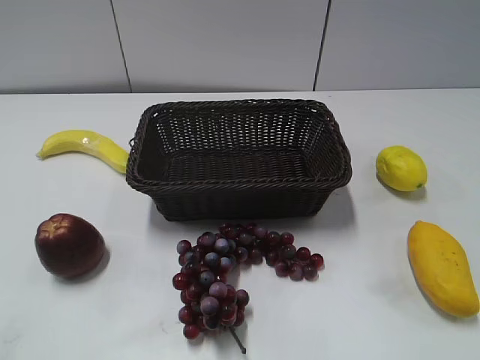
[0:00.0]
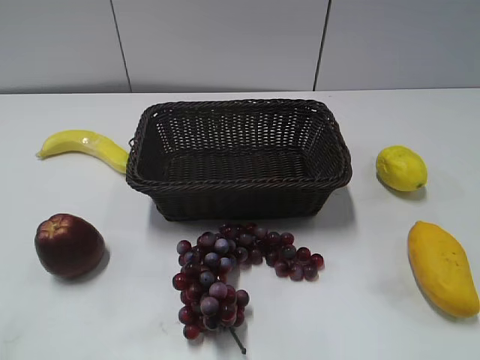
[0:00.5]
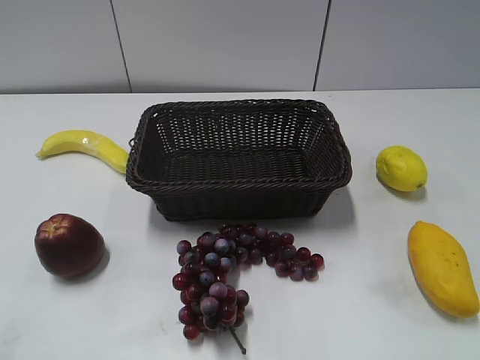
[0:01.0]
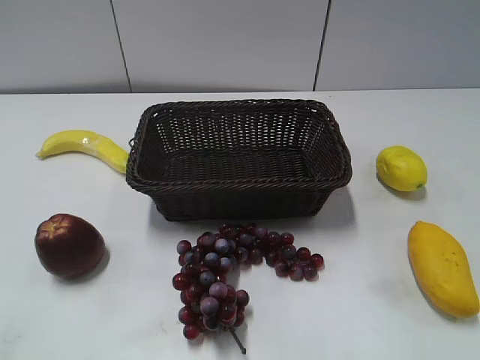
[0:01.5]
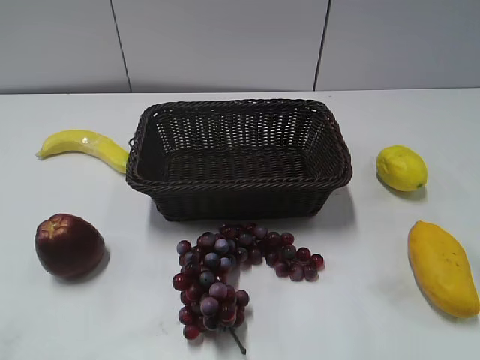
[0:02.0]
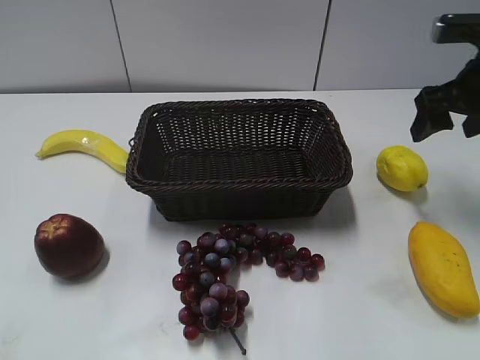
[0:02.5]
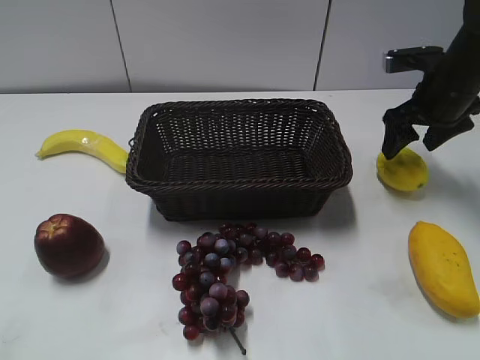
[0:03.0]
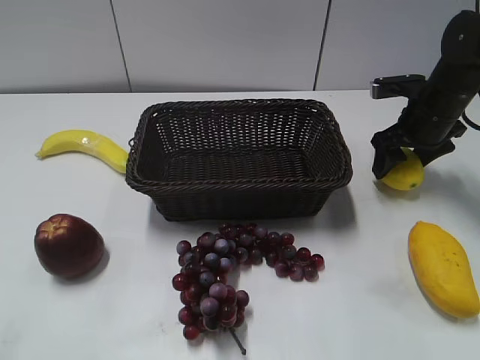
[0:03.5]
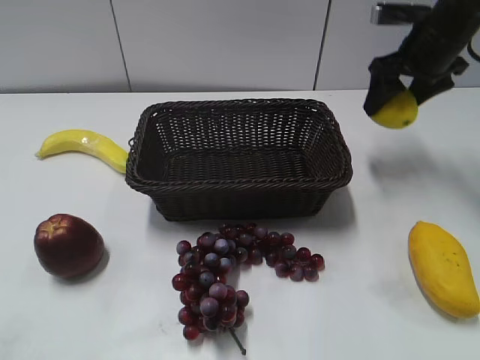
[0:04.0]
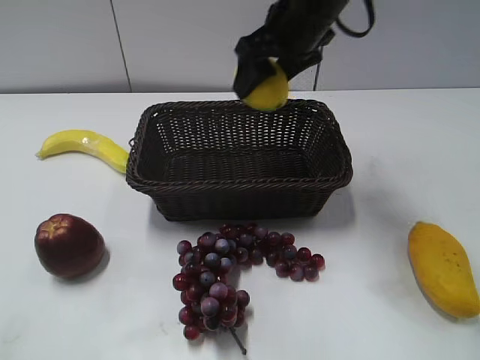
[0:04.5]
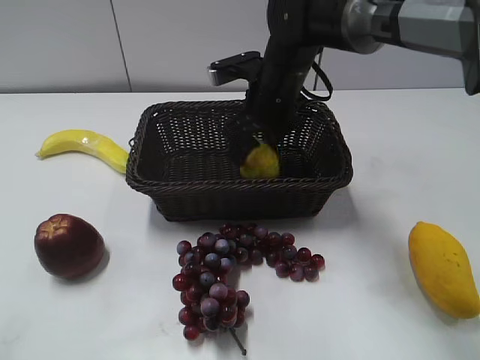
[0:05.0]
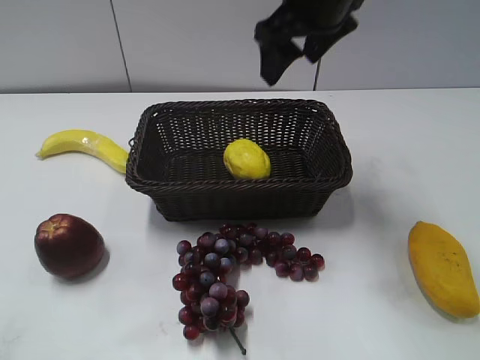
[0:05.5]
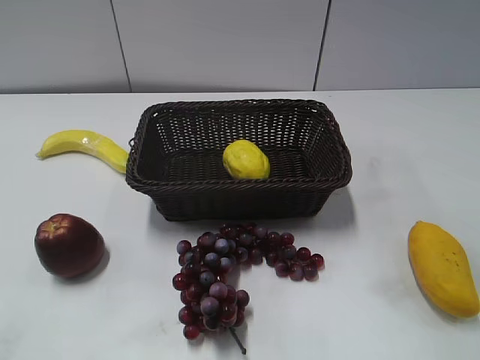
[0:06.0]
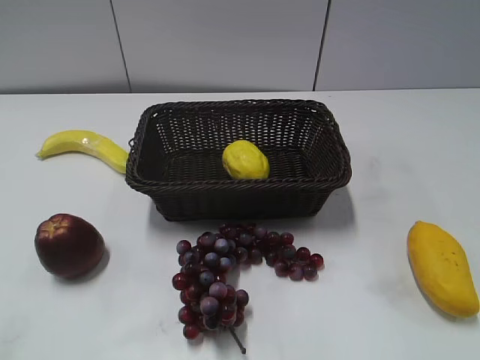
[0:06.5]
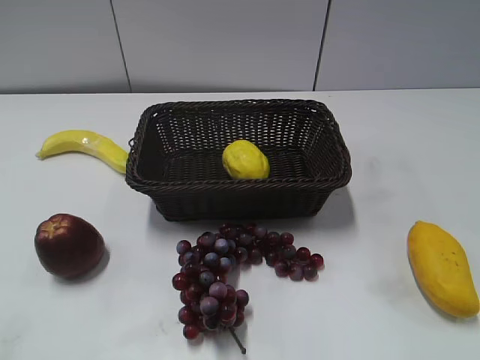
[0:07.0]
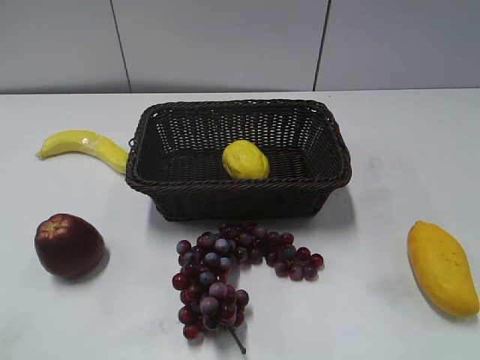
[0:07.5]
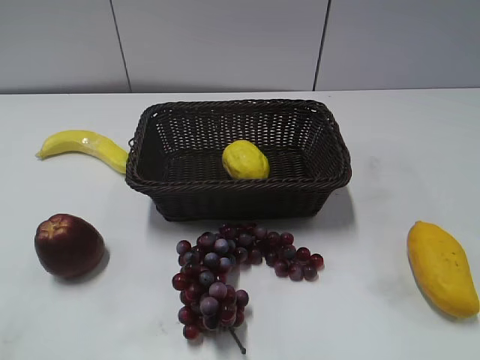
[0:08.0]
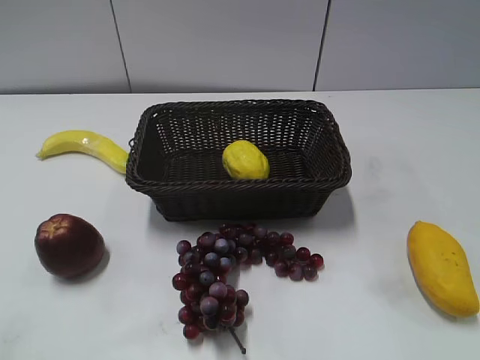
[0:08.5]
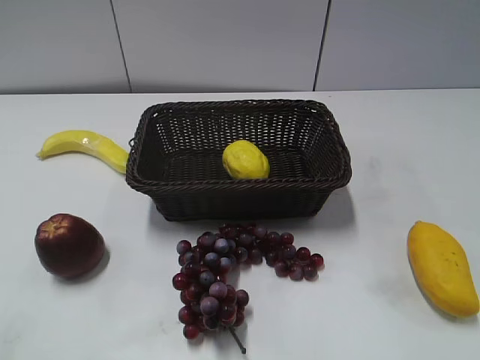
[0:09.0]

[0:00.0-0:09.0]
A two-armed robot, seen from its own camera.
Step, 0:02.5 to 0:03.5: Grasp the lemon with right gripper.
Step, 0:04.0 to 0:05.0: Place the lemon in the basket with right gripper.
0:02.0 to 0:04.5: The right gripper travels forward and to the left by some 30 cm.
0:04.5 to 0:07.0: The right gripper is displaced backward and to the right by approximately 50 cm.

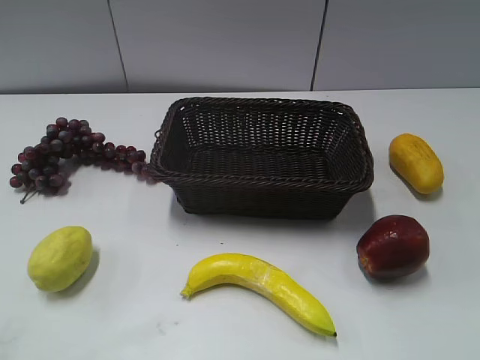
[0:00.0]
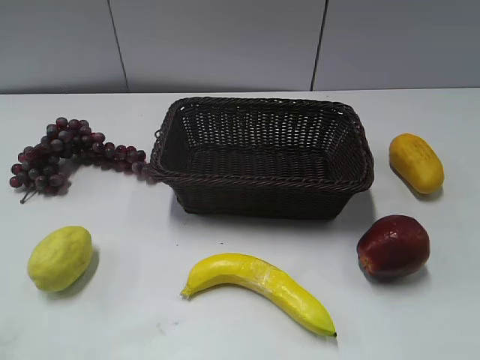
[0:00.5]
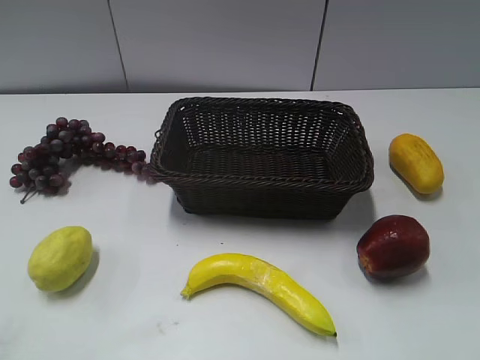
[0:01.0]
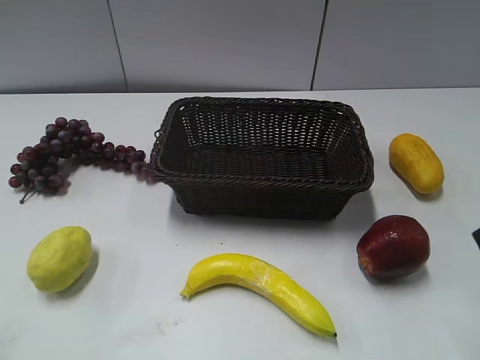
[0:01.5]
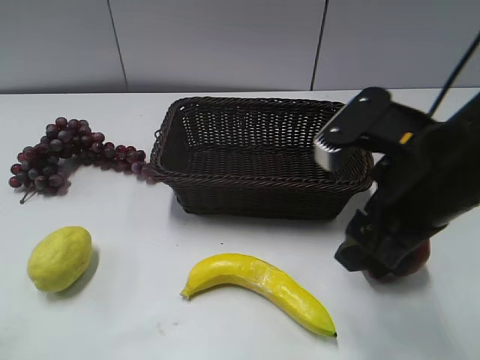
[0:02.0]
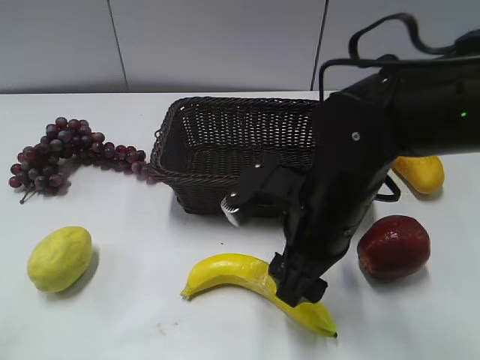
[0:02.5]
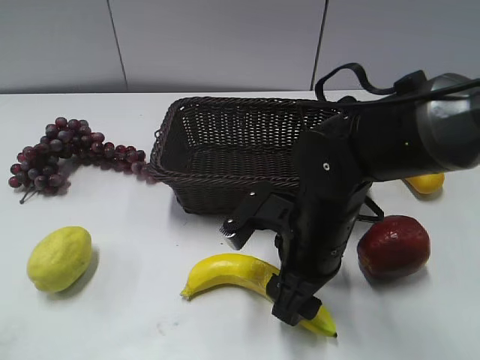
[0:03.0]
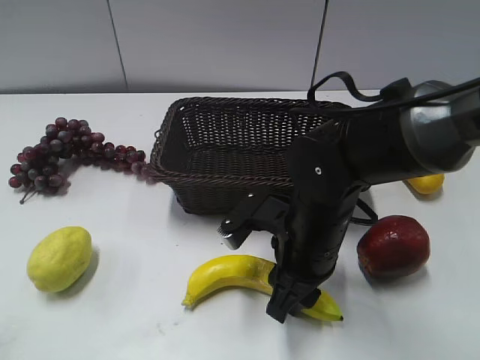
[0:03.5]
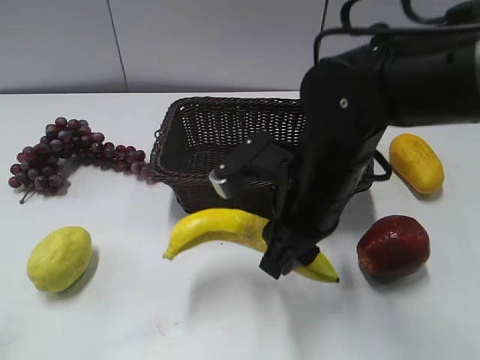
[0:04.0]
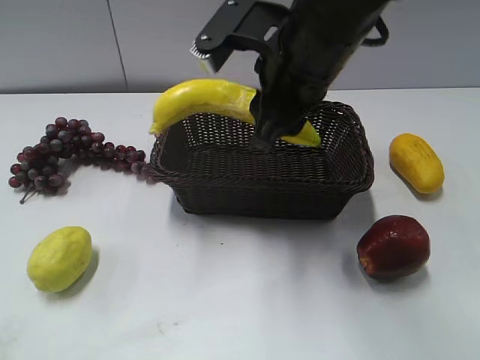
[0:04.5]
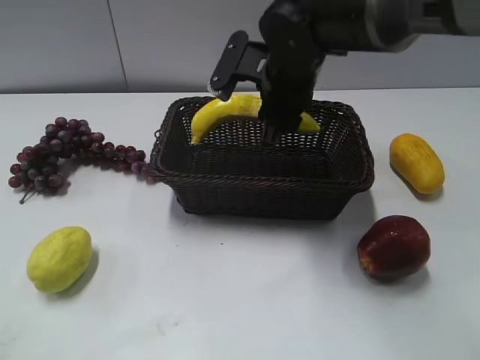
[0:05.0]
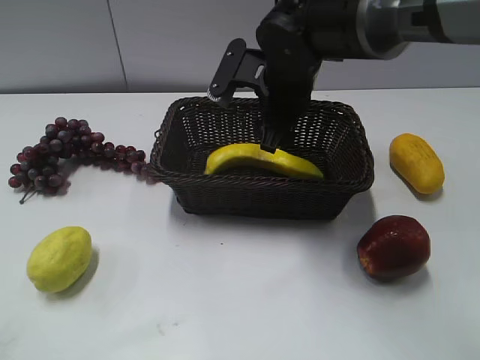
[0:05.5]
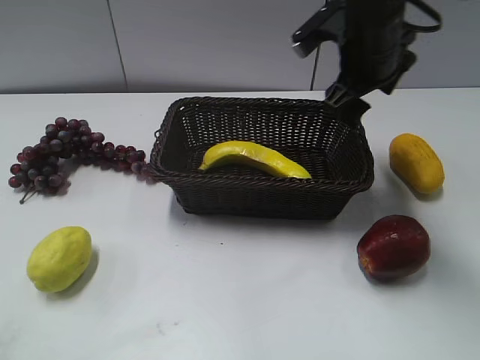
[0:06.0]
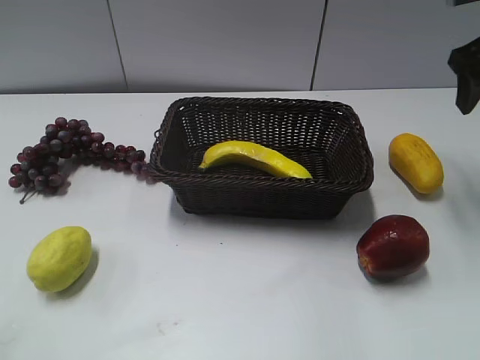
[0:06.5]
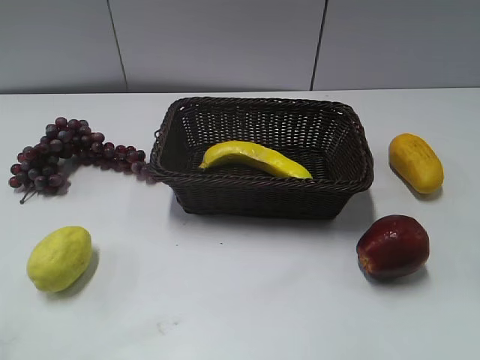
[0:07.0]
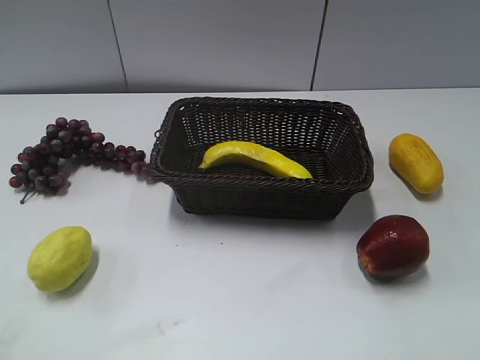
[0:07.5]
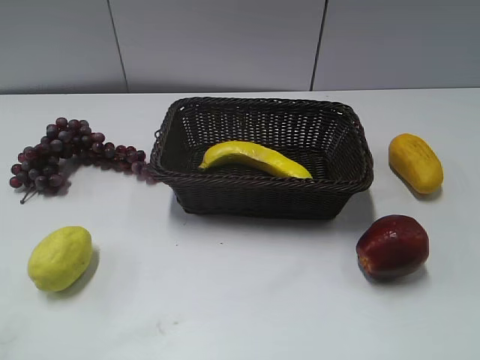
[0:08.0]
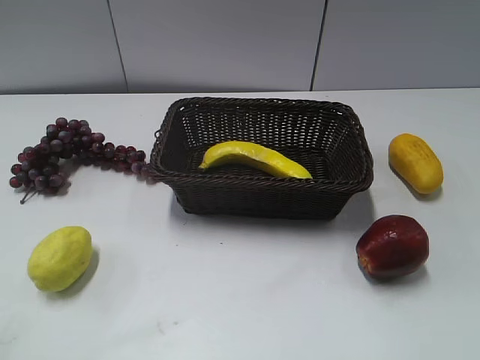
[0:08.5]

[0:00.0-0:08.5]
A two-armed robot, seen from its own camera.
Step, 0:01.5 to 0:03.5: Grasp the banana with right gripper.
Step, 0:04.0 to 0:05.5: Place the banana in the basket with right gripper.
0:02.0 to 0:04.0: The right gripper is displaced to the left and downward by approximately 10 cm, and closes its fingers.
0:04.0 to 0:06.5: The right gripper shifts about 25 cm to the right, forward and upward, and opens its fingers.
0:06.5 to 0:08.5: The right gripper is displaced backward by approximately 35 cm.

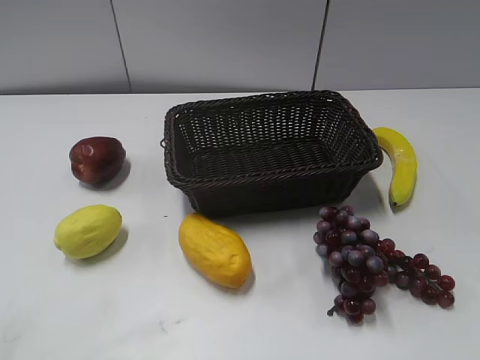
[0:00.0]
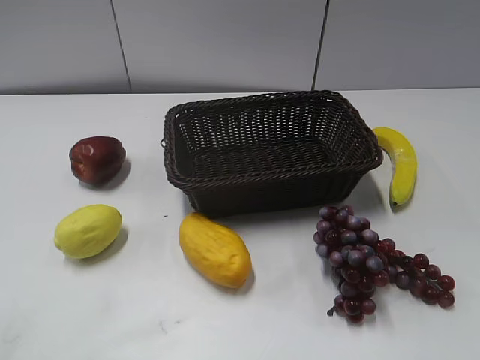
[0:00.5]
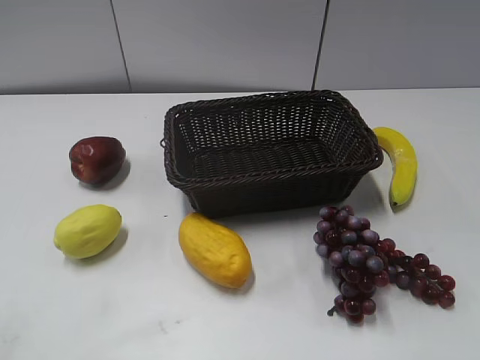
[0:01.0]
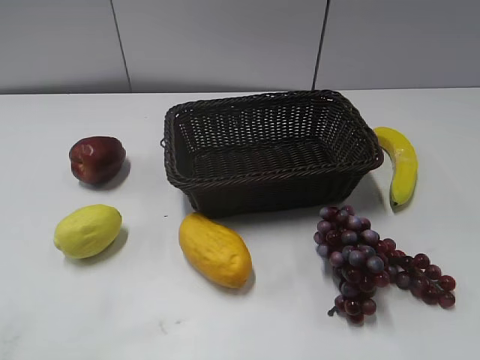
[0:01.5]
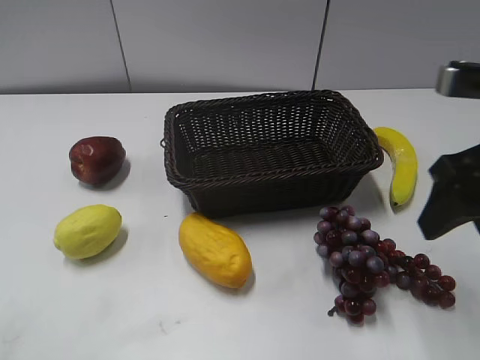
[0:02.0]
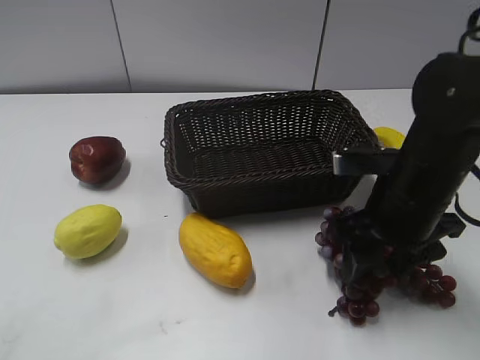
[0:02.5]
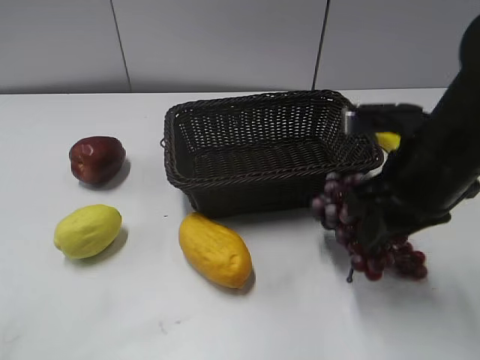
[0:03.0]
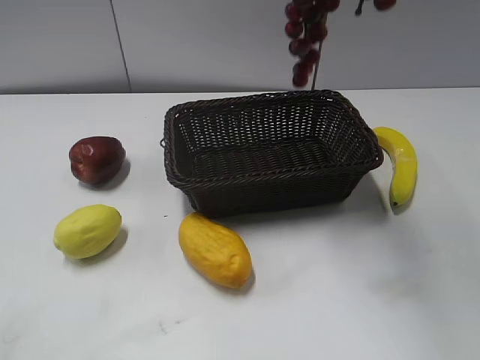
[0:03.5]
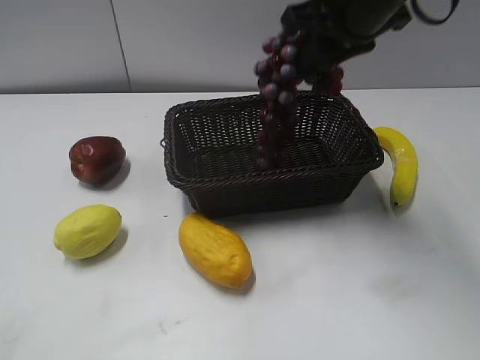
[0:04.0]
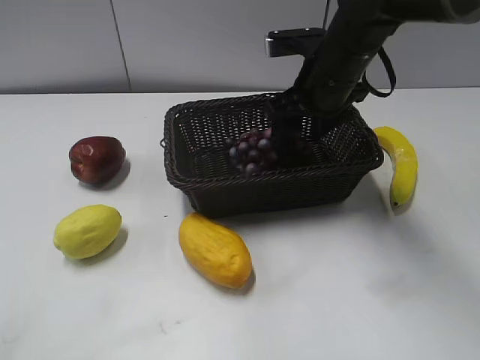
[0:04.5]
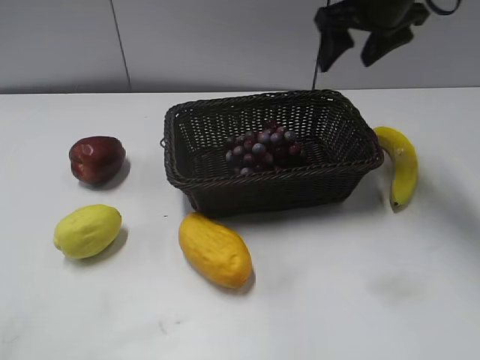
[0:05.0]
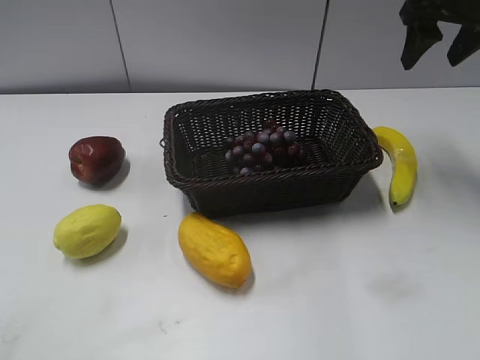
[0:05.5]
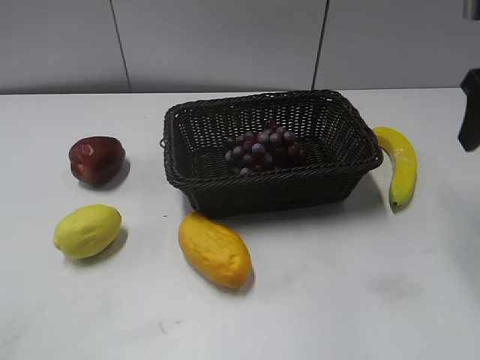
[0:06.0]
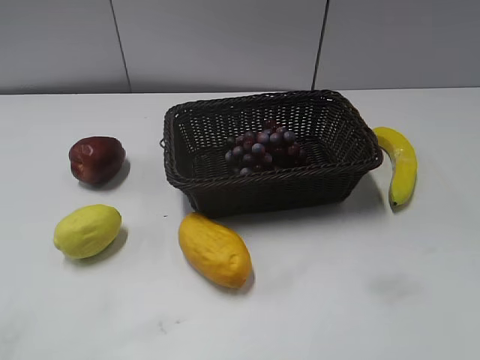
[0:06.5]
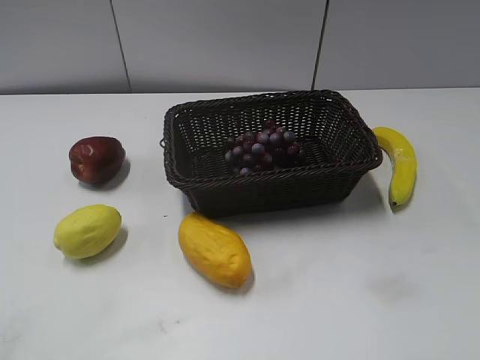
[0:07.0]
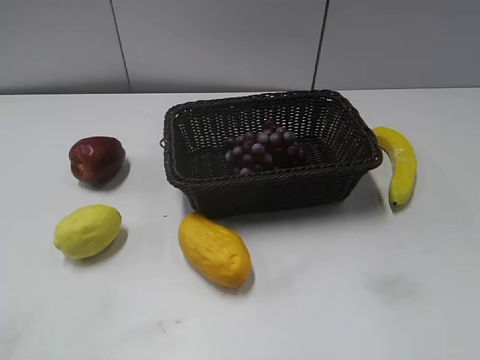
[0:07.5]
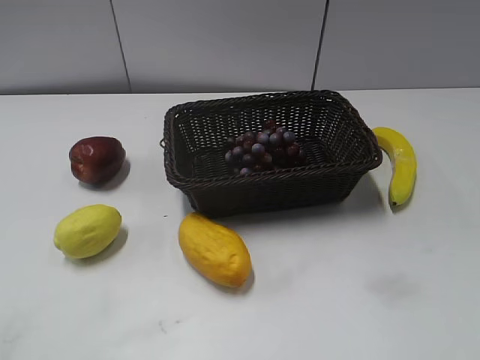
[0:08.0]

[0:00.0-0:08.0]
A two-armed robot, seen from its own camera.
Step, 0:02.0 to 0:02.5: Grasp the grape with right gripper.
Step, 0:03.0 to 0:04.5: Place the grape in the basket with right gripper.
0:02.0 to 0:04.0: The right gripper goes up and down, approximately 30 cm each way, reversing 2 times, and closes up.
0:04.0 to 0:06.0: The right gripper travels to the right and backward by approximately 15 cm, and opens its fingers.
0:06.0 to 0:08.0: The right gripper is displaced backward by some 30 cm.
